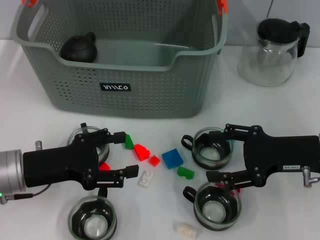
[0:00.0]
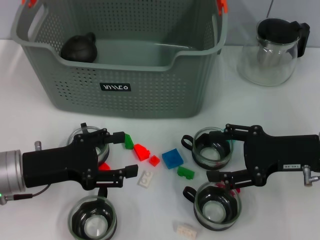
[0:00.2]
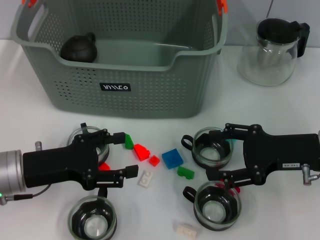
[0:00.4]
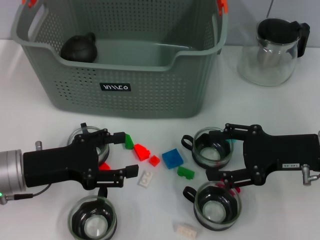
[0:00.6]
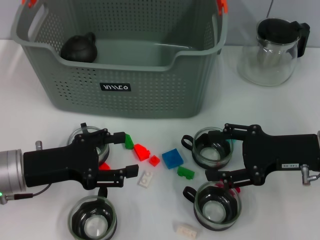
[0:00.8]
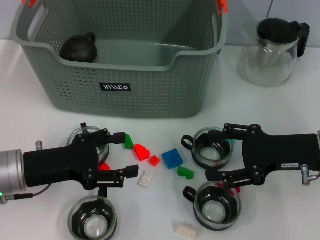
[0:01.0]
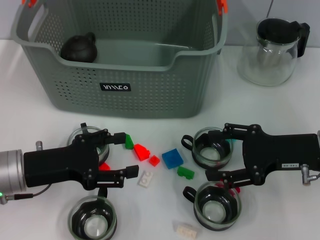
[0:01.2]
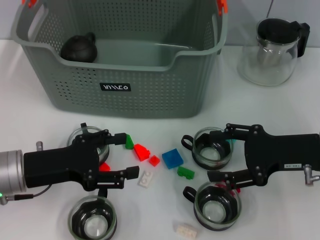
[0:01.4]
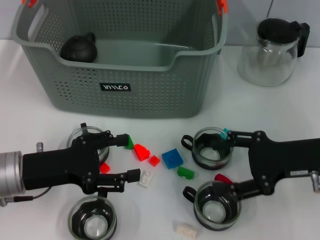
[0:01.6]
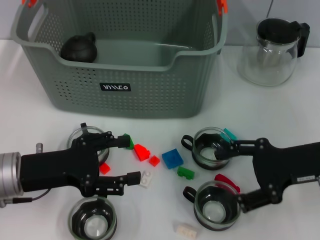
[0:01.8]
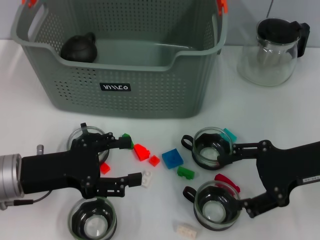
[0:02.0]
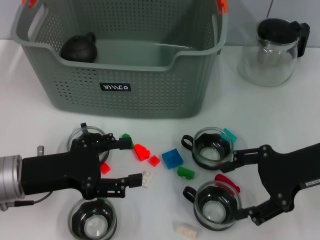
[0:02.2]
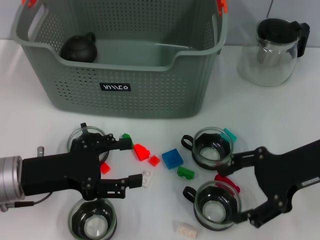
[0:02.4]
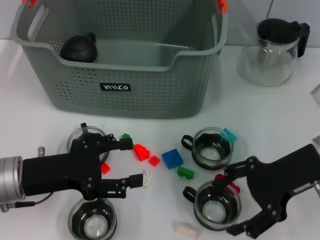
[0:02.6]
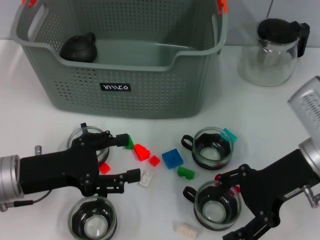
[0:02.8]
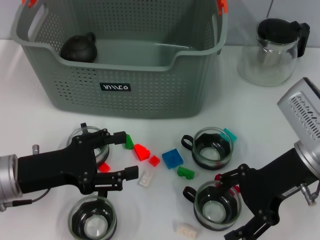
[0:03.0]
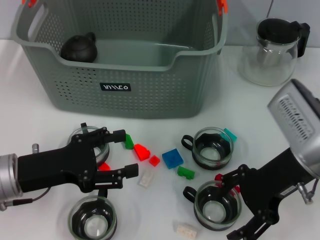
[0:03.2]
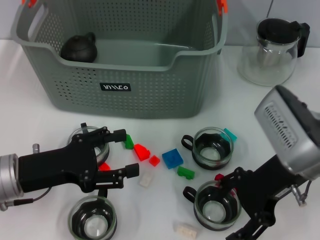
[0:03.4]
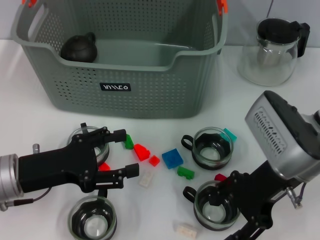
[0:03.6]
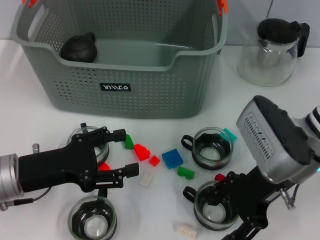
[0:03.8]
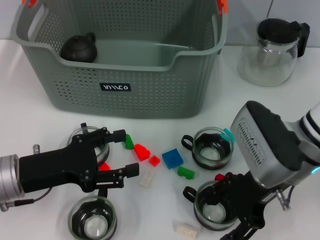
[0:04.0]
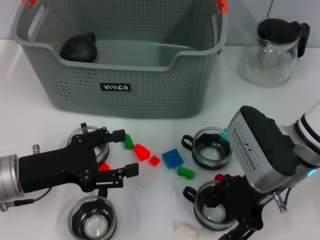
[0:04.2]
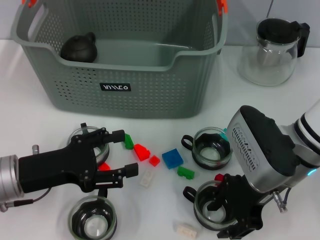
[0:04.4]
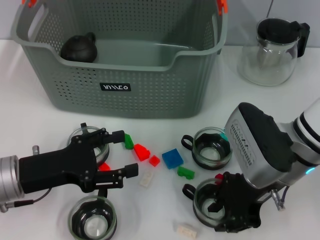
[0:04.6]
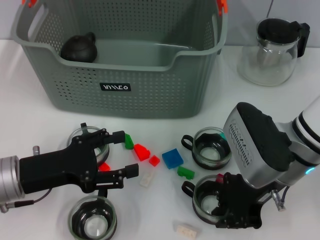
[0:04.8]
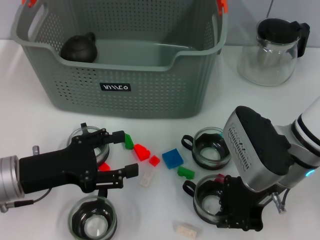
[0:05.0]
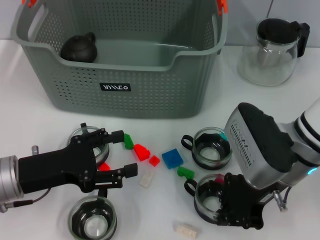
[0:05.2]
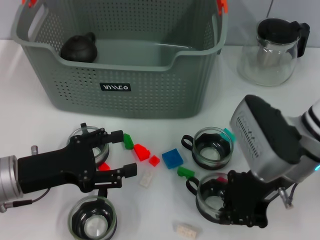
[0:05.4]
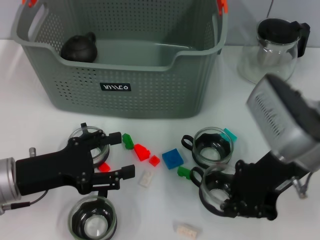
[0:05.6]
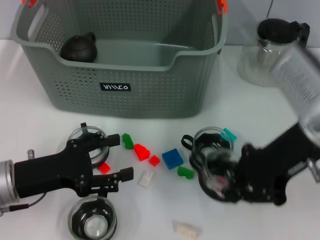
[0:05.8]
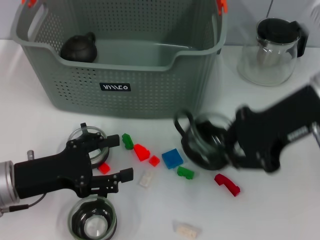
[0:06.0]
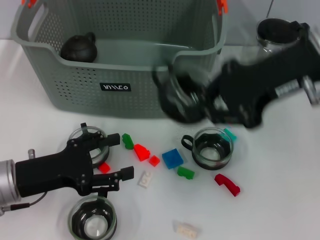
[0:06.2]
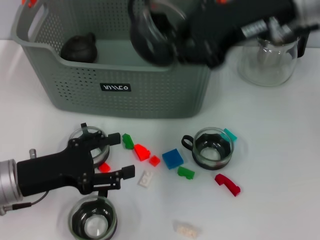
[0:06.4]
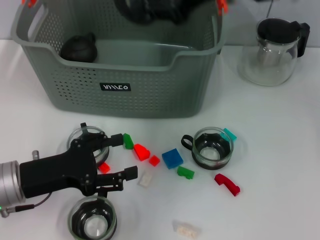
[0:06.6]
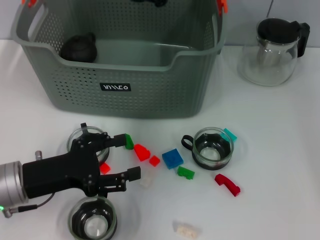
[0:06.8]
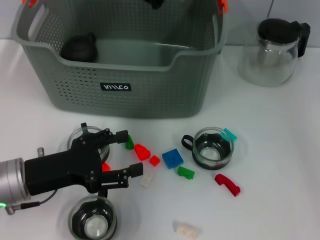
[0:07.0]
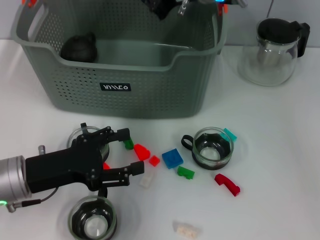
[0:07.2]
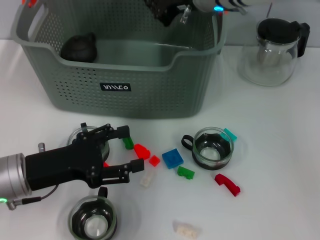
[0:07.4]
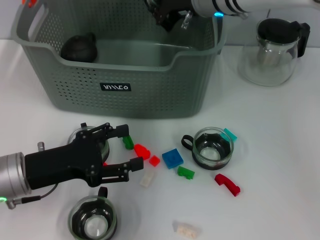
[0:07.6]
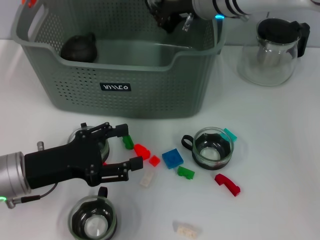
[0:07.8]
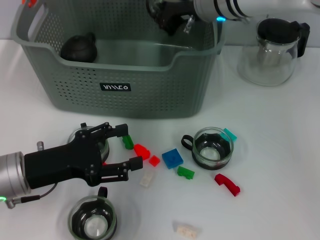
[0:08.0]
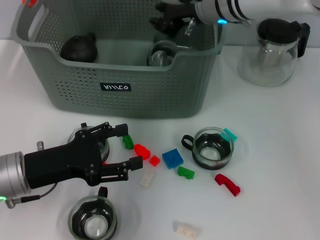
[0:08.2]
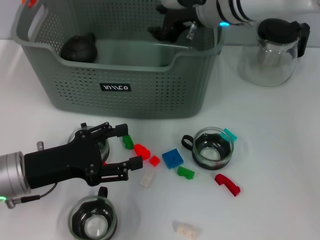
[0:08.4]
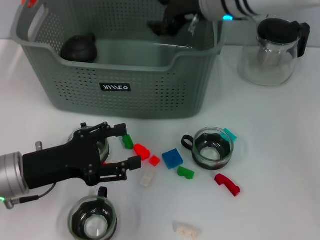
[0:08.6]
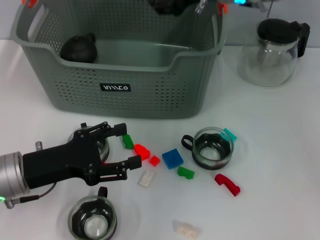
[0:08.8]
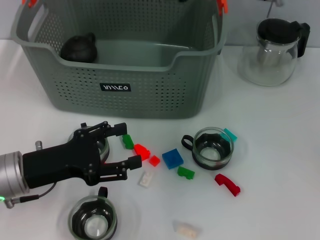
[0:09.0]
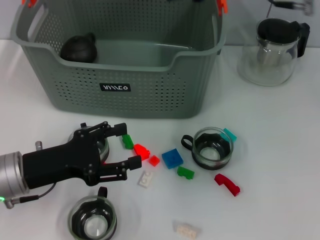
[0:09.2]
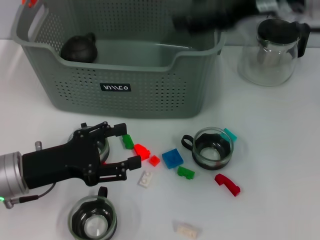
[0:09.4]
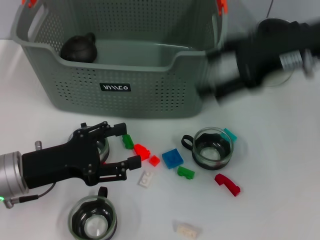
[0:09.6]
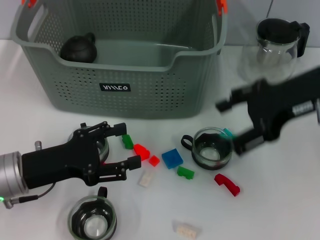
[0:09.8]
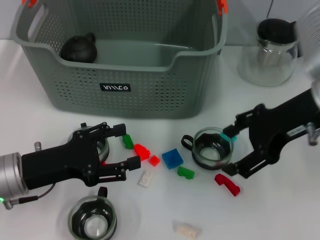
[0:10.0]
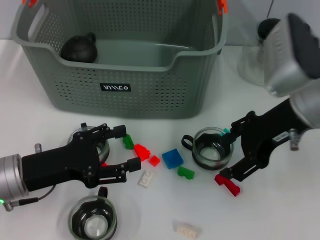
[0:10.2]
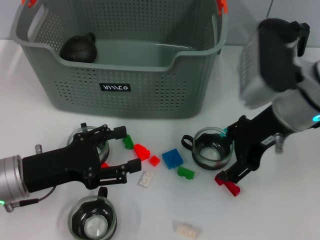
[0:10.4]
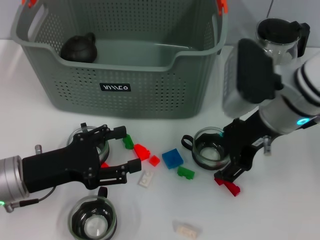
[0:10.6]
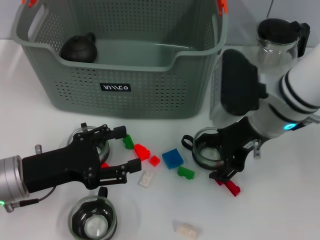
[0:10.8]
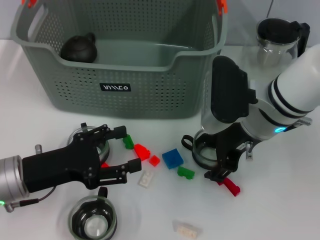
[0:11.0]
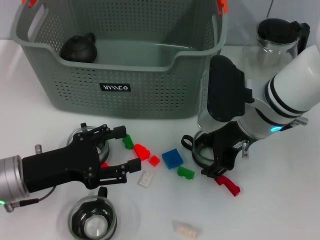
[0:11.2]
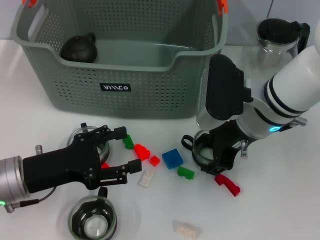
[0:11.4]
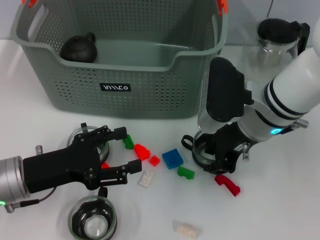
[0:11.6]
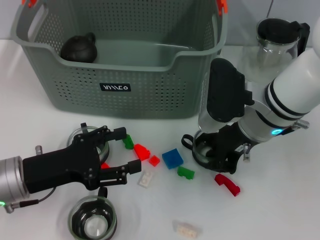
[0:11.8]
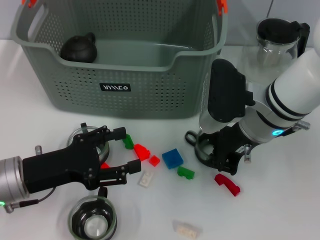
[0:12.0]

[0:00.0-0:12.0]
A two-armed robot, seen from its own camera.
Task of the whole recording: pick up the teacup on the table and place it into the storage bin, pick up the block on the table and place it into the storage bin.
Step, 0:00.0 to 0:04.8: Grasp the cup with right gripper.
Step, 0:05.0 to 0:08.6: Place the cup in the storage box with right gripper.
Step, 0:08.8 to 0:11.8: Grasp the cup with right gripper.
0:00.0 to 0:01.6: Neither gripper changes place.
0:01.6 to 0:03.0: The right gripper travels to the left by some 5 cm.
0:03.0 to 0:04.4: The grippers move only a little.
0:04.4 to 0:06.0: The right gripper is displaced upward by some 10 cm, and closes up.
0:06.0 to 0:07.6: The right gripper goes about 20 cm forward and to the left.
0:07.6 to 0:09.0: The right gripper travels upward by roughly 5 cm, and opens up.
0:09.0 to 0:10.4: The right gripper moves backward and downward, some 10 cm.
0:10.4 to 0:12.0: The right gripper changes place by roughly 5 cm, and closes its fingers.

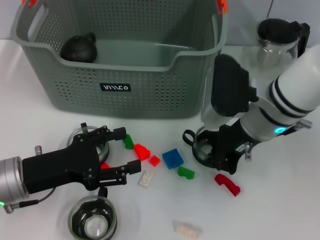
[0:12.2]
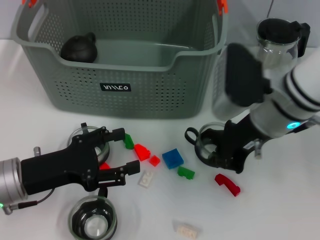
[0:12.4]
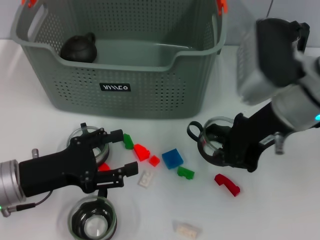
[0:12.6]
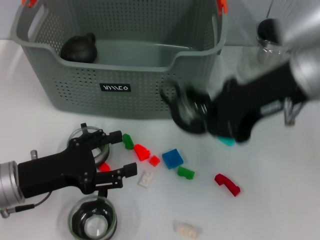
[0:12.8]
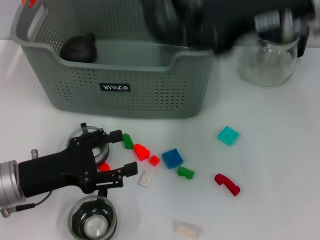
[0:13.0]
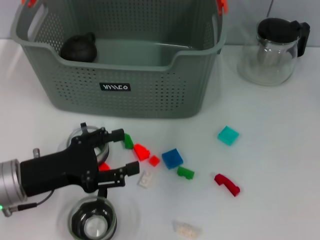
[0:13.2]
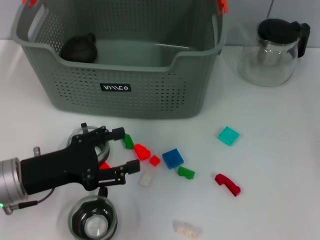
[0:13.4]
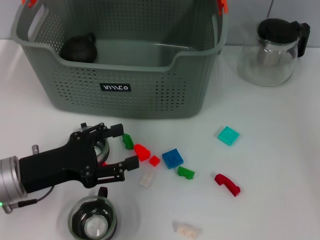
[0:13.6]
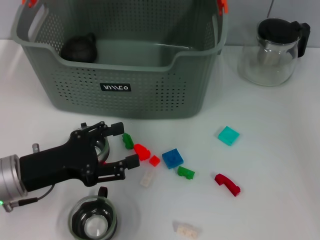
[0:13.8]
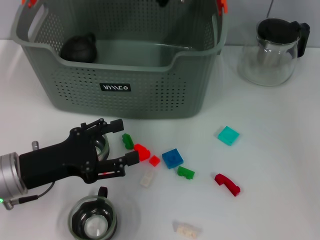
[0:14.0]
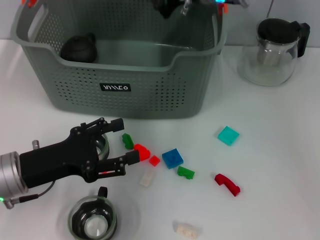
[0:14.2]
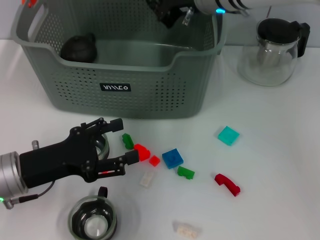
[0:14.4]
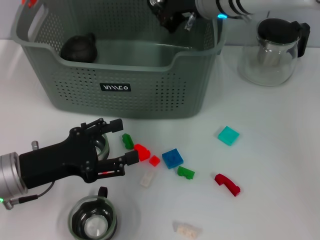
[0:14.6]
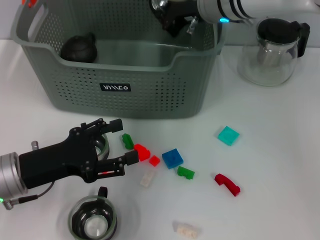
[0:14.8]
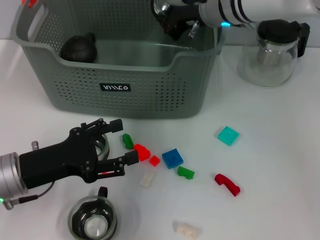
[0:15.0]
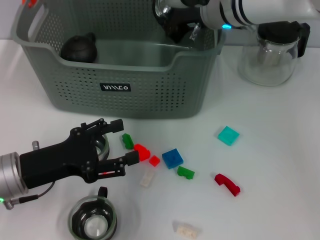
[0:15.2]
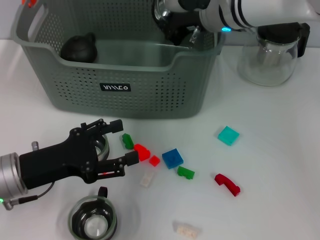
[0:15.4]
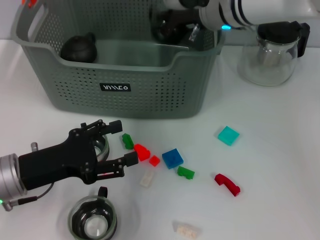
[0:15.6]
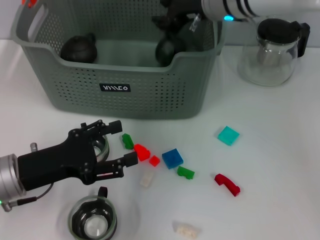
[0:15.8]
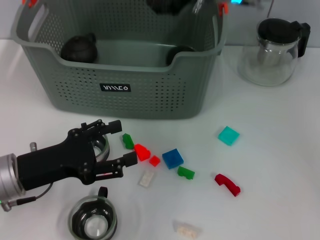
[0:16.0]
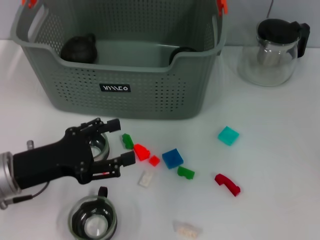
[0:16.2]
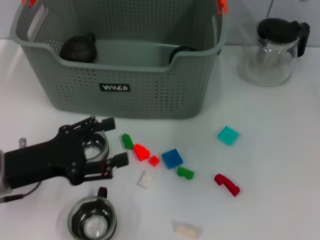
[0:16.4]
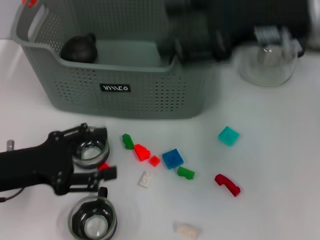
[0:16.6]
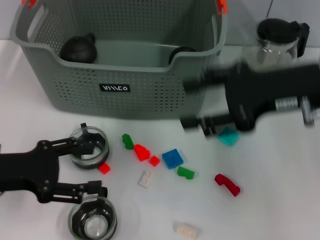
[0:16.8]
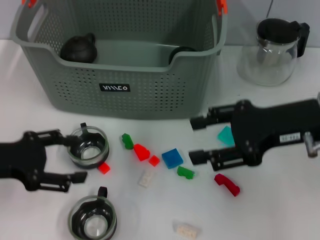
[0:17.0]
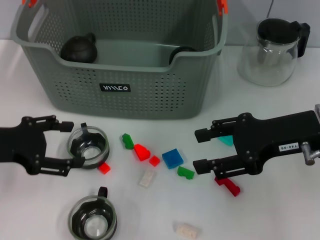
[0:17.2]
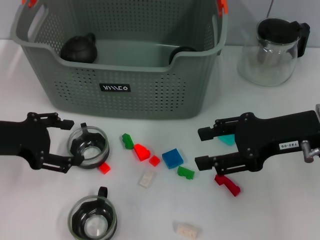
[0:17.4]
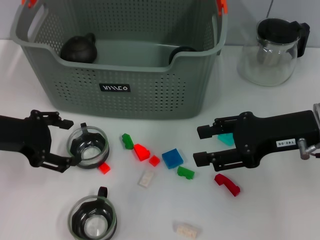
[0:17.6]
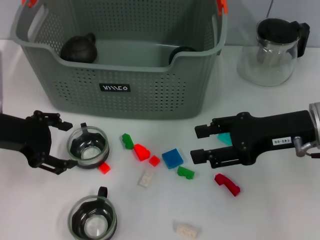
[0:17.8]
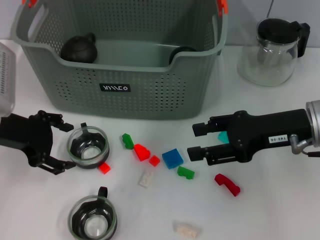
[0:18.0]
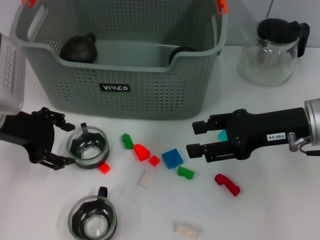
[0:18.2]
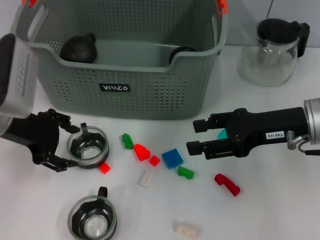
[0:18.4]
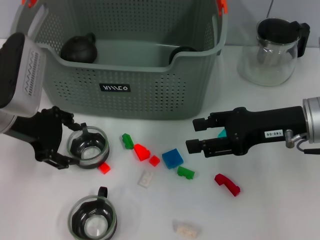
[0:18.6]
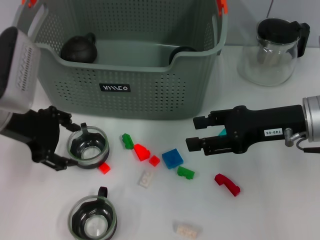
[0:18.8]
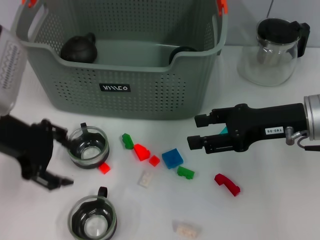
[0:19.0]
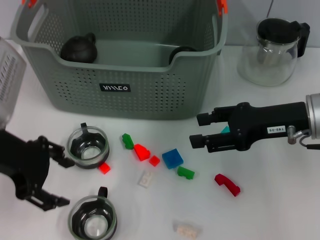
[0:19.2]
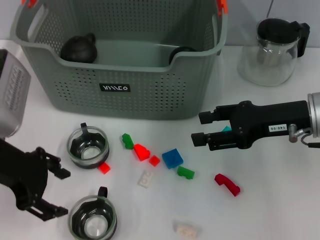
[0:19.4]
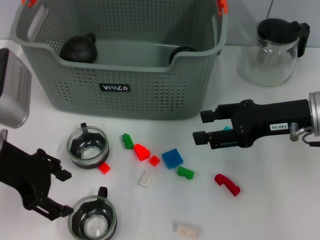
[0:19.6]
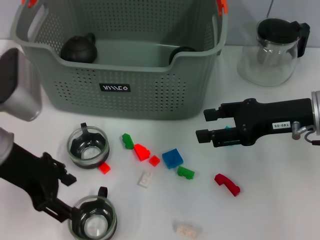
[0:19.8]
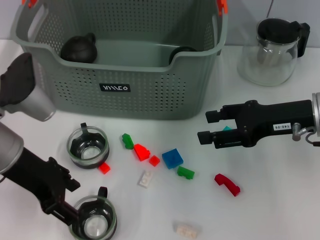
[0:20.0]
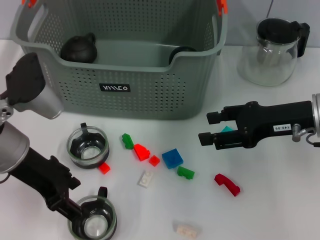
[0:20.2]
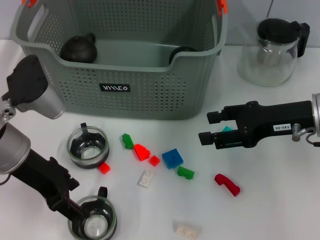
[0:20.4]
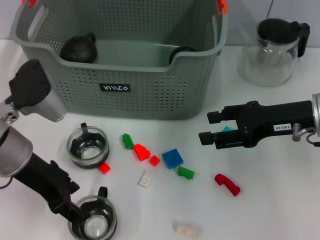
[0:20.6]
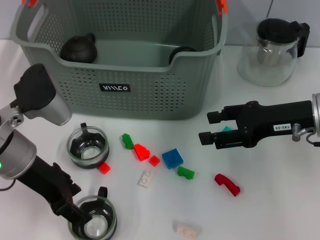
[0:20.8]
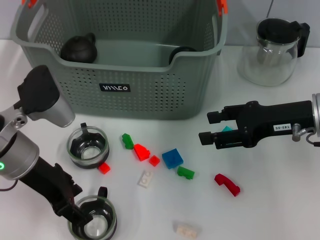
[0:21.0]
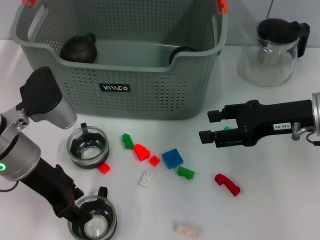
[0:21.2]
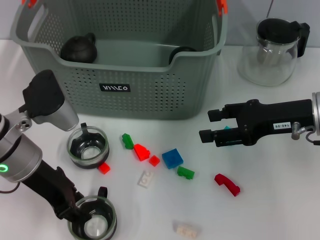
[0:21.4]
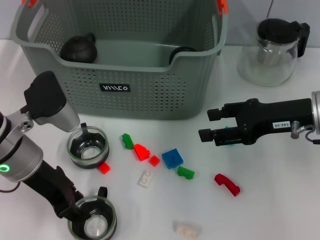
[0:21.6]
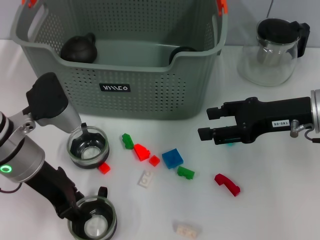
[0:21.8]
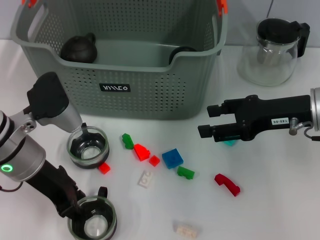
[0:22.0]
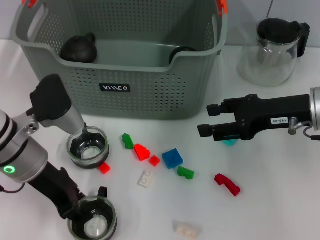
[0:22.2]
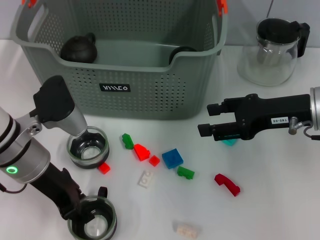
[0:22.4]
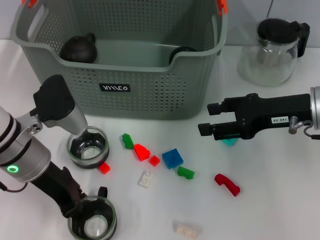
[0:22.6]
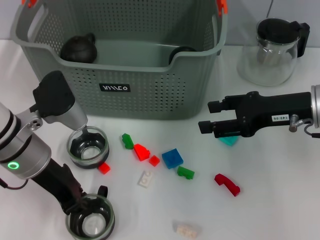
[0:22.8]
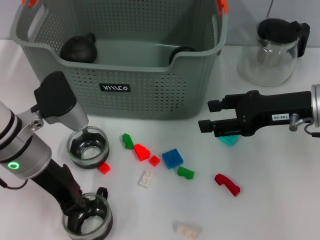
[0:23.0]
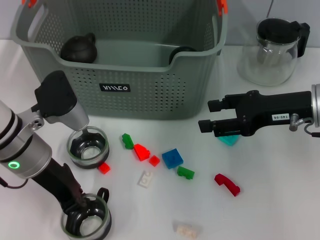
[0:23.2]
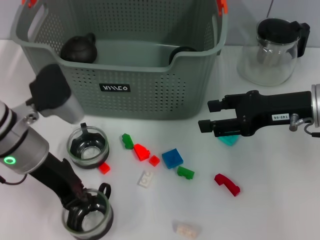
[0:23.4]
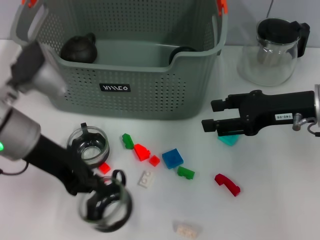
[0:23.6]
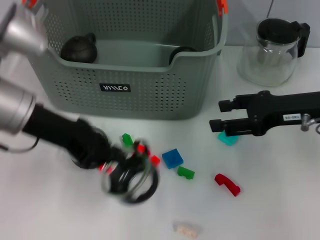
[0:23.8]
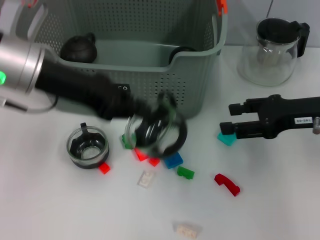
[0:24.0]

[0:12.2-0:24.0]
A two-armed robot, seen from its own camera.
Task of the whole recording: pick up the teacup on the table and place it into the storage bin, pick up the block on the table and place it into the storage bin.
Step, 0:12.2 to 0:16.0: Place the cup in the storage box with right gripper.
Step, 0:16.2 to 0:23.0: Grasp the cup with left gripper.
0:12.2 to 0:13.6: The right gripper moves upward and forward, roughly 20 cm.
0:13.6 to 0:15.2: The right gripper is displaced downward by roughly 10 cm.
0:15.2 to 0:16.6: The right gripper is displaced backward, to the right and upward by about 20 cm, and opens its fingers.
0:16.6 to 0:18.2: The left gripper travels forward and upward by roughly 10 cm; the right gripper shifts approximately 10 cm downward.
0:18.2 to 0:19.6: The left gripper ends up approximately 5 cm from where it was.
0:19.6 to 0:21.0: There are only small adjustments of the grippers.
0:21.0 to 0:22.6: The grippers make only small movements.
0:22.6 to 0:24.0: The left gripper moves upward, roughly 10 cm, and closes.
